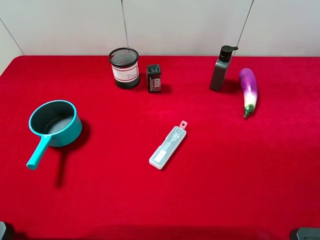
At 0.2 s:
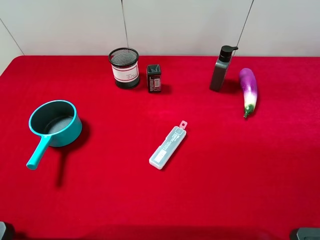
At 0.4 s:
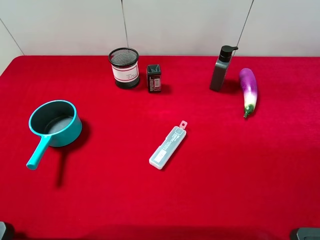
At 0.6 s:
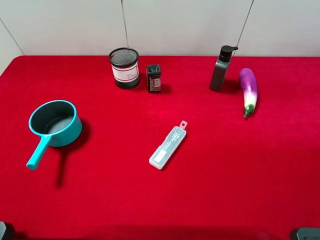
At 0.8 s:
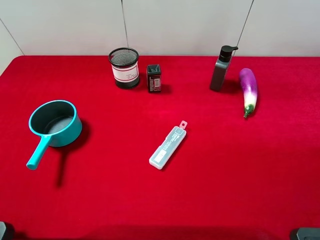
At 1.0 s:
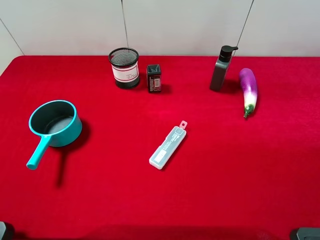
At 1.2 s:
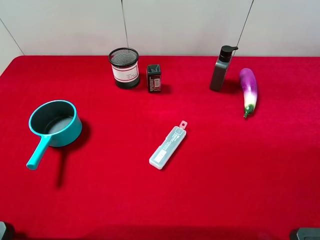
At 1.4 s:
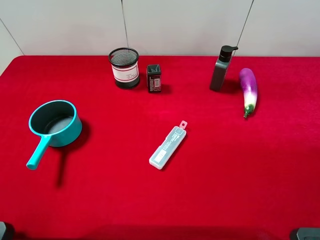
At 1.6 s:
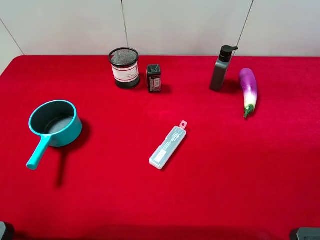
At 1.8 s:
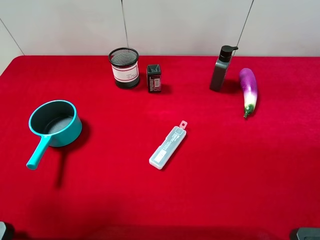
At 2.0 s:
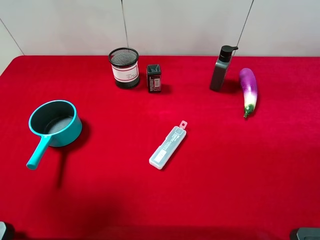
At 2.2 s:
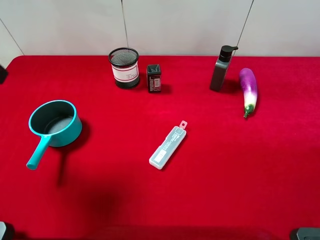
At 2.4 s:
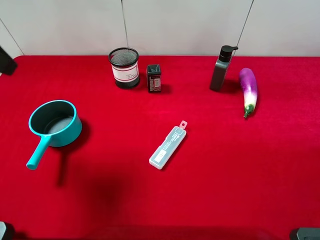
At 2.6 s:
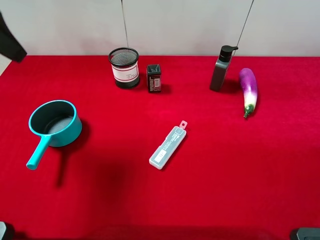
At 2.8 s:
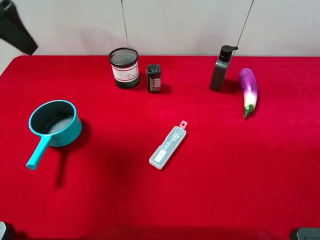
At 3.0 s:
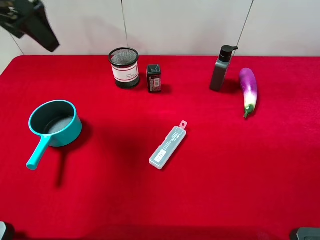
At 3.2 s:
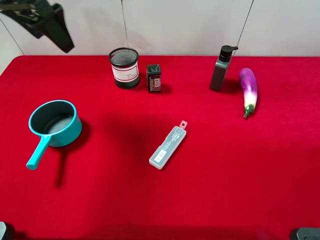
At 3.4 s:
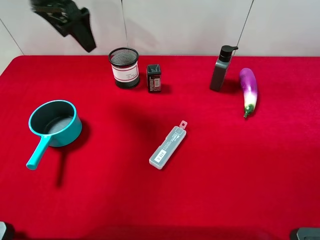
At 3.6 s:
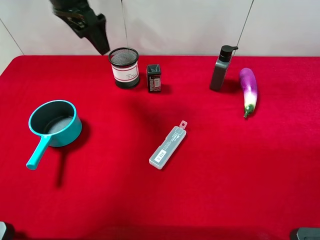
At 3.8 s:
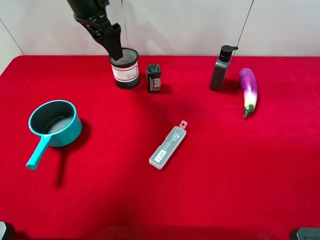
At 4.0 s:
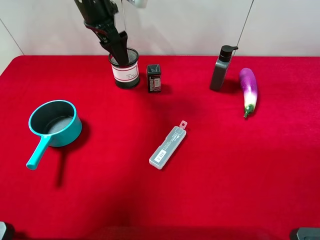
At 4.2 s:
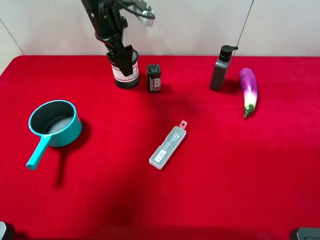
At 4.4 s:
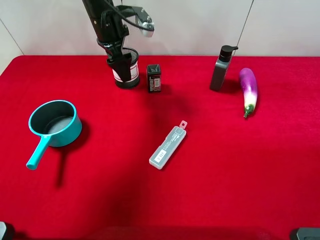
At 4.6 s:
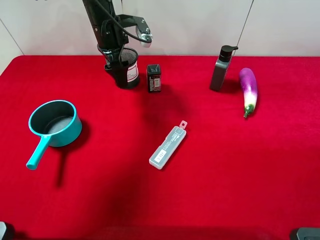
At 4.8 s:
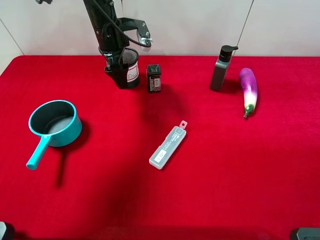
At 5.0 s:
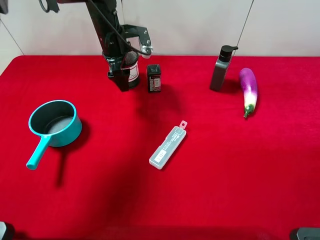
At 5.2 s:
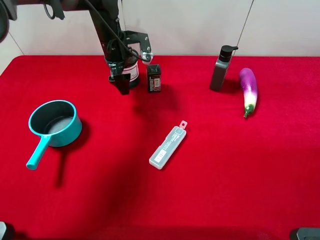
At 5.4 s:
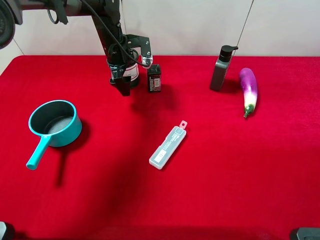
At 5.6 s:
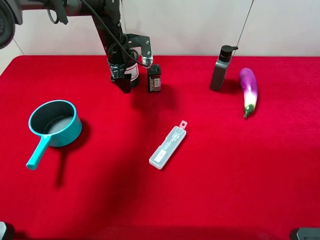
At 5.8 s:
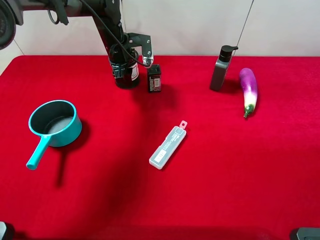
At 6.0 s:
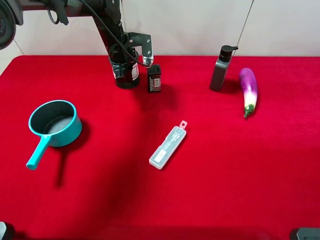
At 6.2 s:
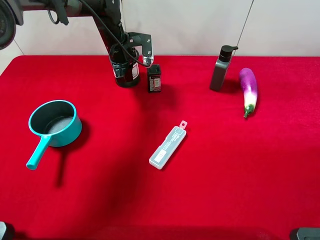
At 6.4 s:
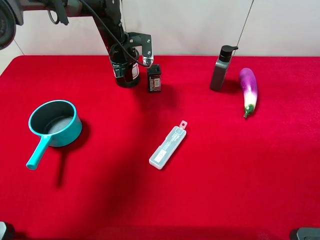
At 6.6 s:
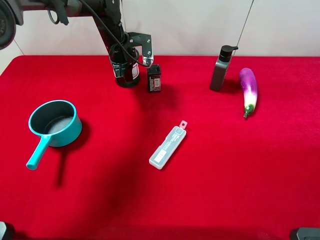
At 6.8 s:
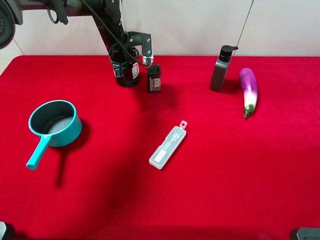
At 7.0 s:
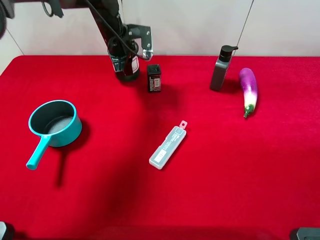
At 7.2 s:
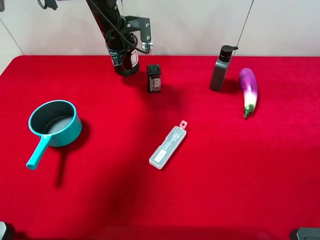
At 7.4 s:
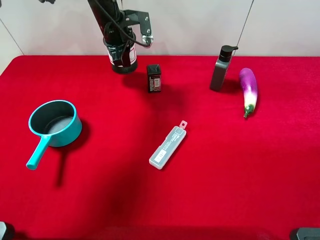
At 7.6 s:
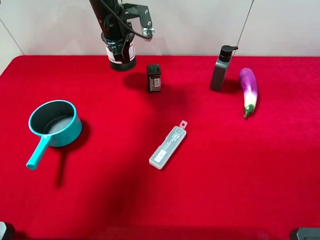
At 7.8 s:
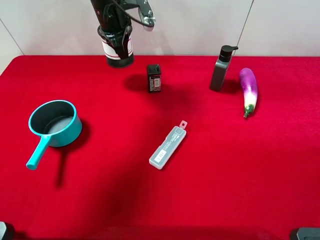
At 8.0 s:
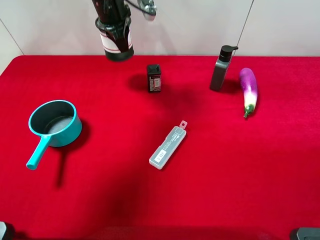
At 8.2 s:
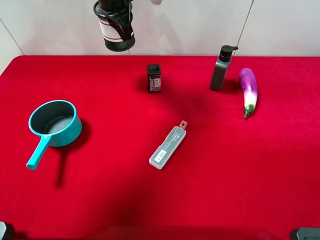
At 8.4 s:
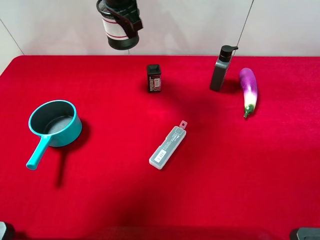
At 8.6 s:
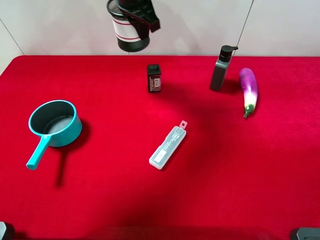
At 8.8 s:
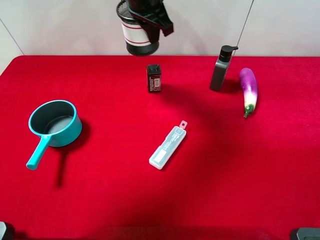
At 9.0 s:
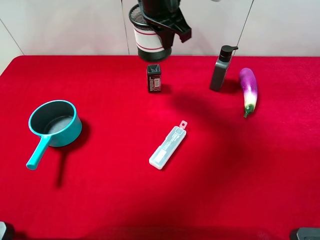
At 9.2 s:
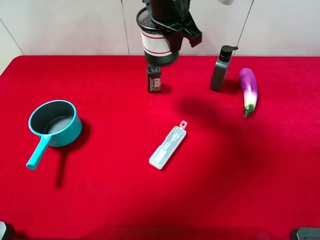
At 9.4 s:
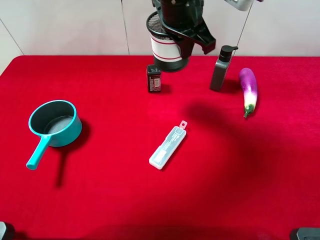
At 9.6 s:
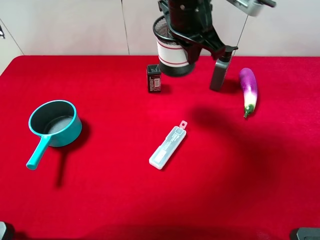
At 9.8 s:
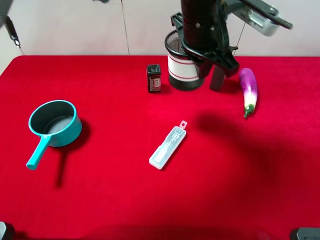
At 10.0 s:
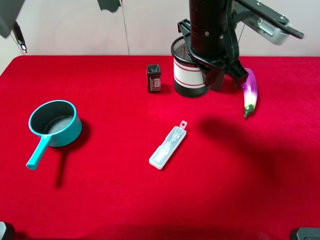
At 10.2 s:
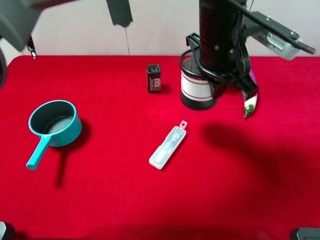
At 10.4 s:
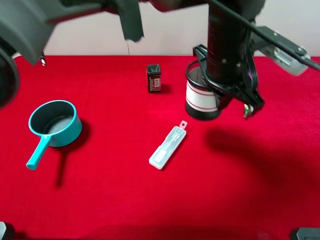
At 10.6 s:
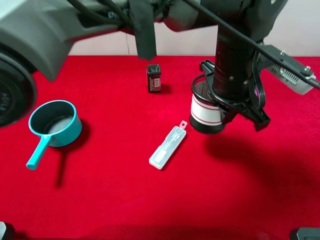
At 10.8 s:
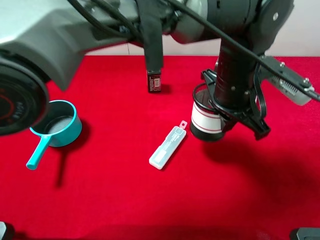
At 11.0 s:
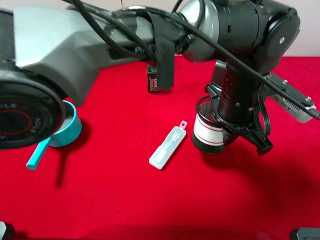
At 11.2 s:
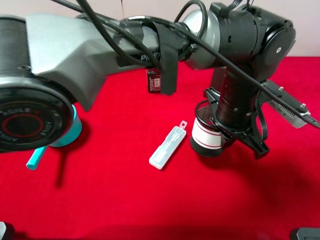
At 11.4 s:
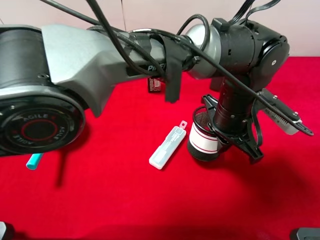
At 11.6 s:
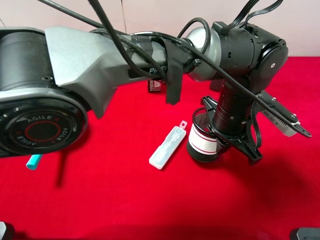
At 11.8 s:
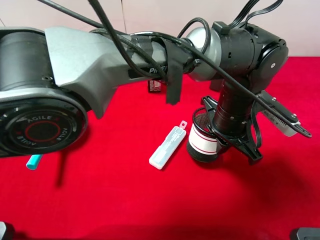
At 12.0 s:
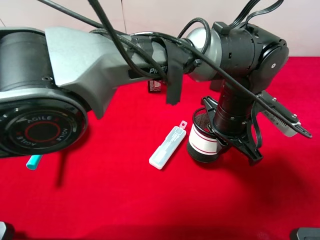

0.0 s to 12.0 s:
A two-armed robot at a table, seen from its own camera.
Task of the whole recording: the gripper move the object.
Step, 0.0 to 6.2 s: Grasp the pen container with the left gripper.
1.6 to 3.0 s: The left gripper moves forward, roughly 25 cm.
3.0 to 4.4 s: The left gripper moves to the right, downward and forward, roughly 20 cm.
4.4 to 6.0 s: The left gripper travels downward by approximately 5 cm, and closes its fingers.
6.0 to 7.6 s: The left gripper is displaced upward by some 5 cm.
7.6 to 9.0 s: The left gripper heads to the right, backward and upward, covering about 15 cm.
9.0 to 10.4 s: The left gripper moves to the right, backward and downward, about 15 cm.
10.4 to 12.0 s: The left gripper heads downward, covering some 10 cm.

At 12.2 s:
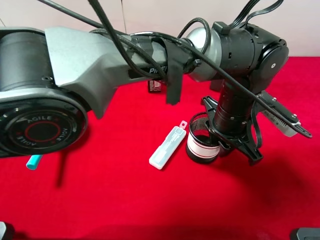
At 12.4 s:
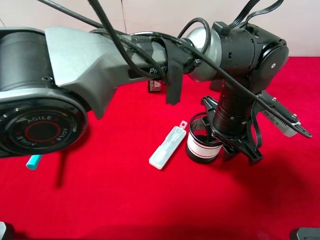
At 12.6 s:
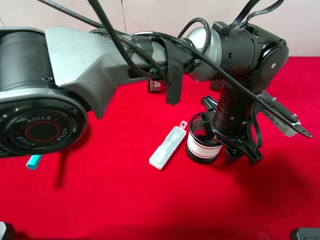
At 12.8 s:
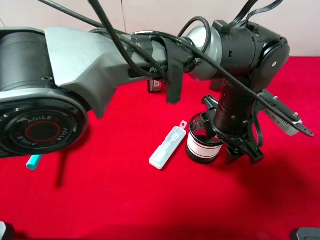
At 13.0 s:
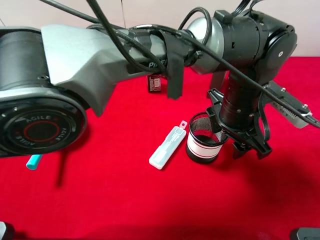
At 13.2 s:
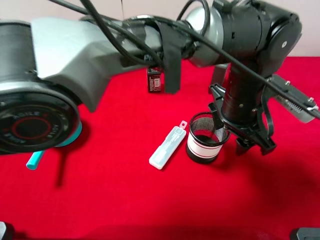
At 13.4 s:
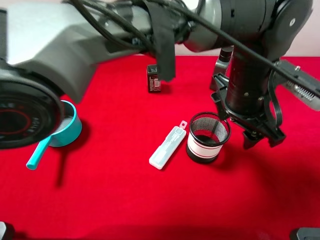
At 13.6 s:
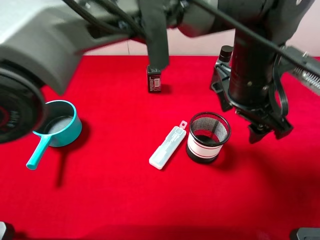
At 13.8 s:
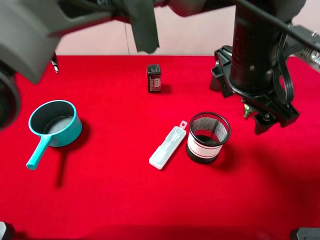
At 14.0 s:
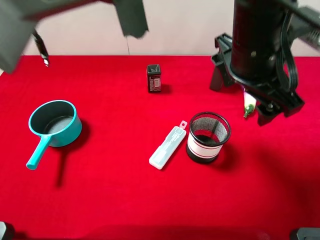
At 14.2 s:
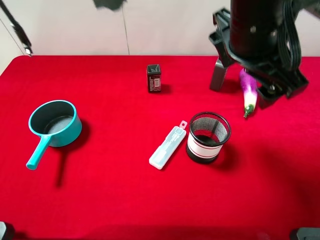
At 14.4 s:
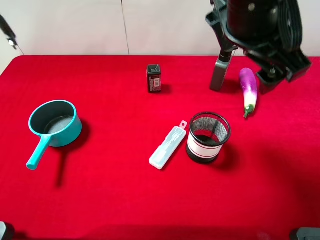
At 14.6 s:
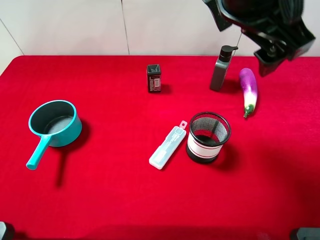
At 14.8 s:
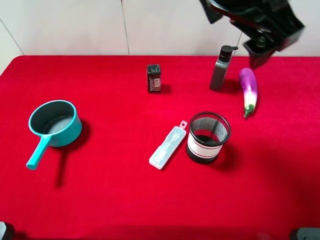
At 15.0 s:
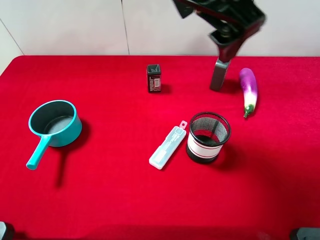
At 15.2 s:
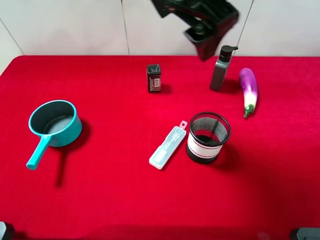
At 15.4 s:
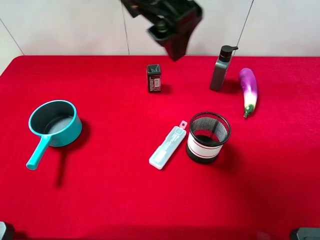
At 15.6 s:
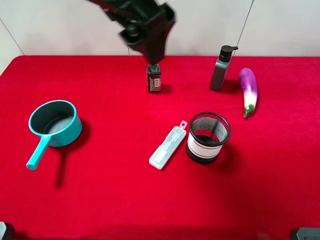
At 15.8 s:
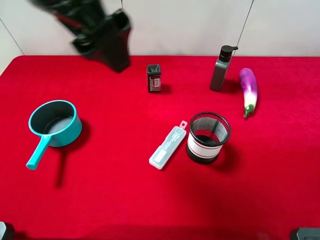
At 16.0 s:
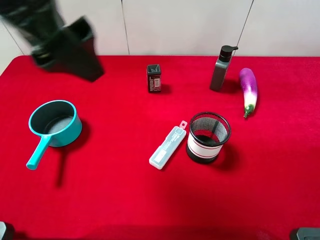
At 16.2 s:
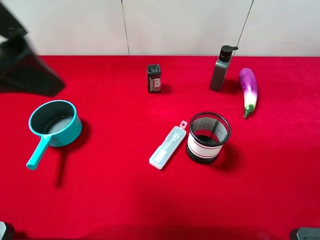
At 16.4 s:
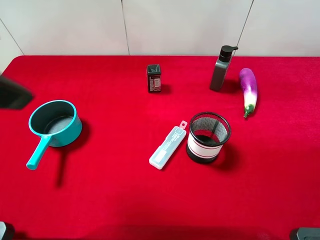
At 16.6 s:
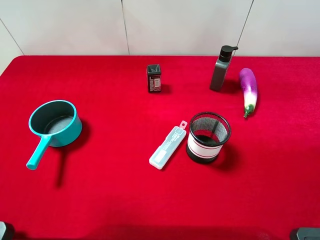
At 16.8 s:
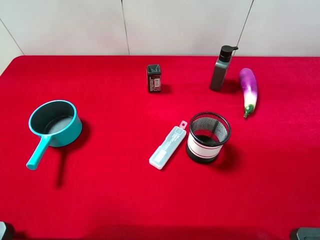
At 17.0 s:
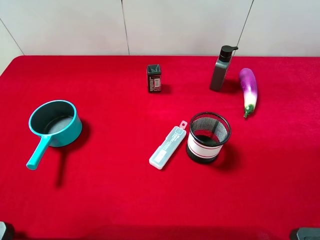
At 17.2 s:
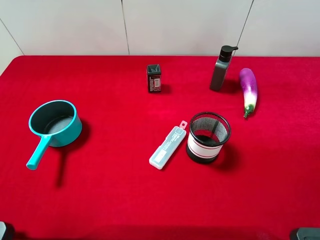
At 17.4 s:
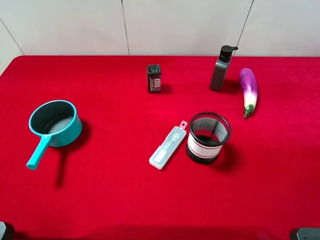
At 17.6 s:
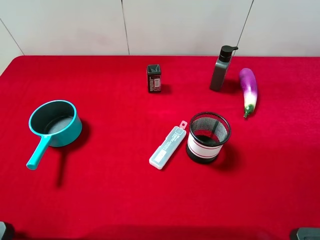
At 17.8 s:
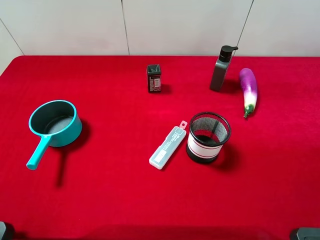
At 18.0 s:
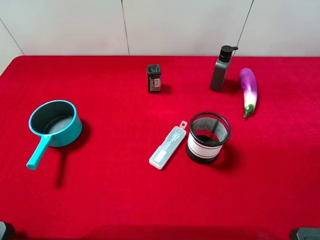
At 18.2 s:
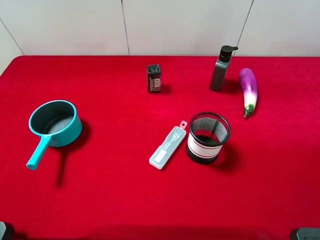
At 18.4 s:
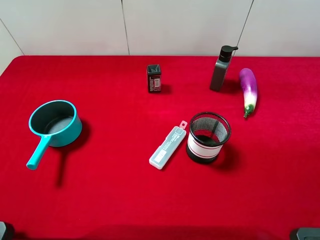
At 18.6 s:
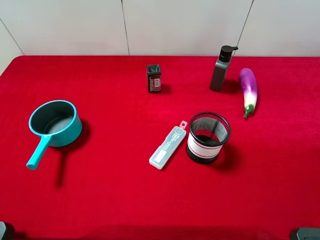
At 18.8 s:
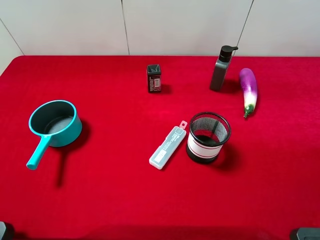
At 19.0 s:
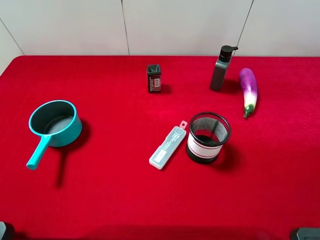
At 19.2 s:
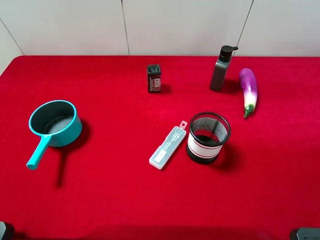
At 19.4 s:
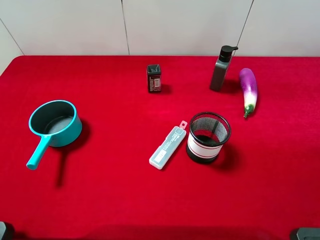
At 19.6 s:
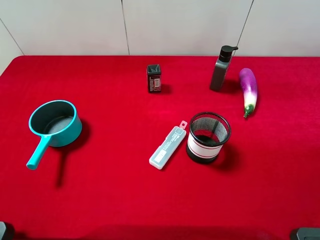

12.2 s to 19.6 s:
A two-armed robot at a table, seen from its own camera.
Task of the whole recording: the gripper move the object.
12.2 to 13.6 s: The left gripper moves upward, about 10 cm, and opens.
13.6 to 15.2 s: The left gripper moves upward and to the left, roughly 20 cm.
15.2 to 16.6 s: The left gripper moves to the left and backward, some 30 cm.
